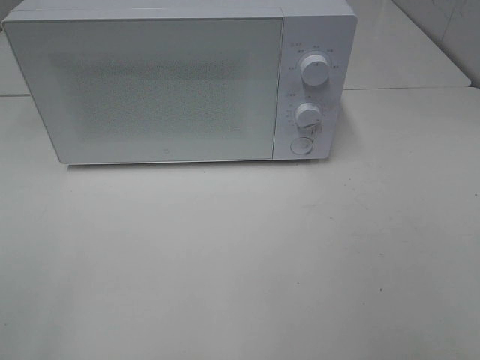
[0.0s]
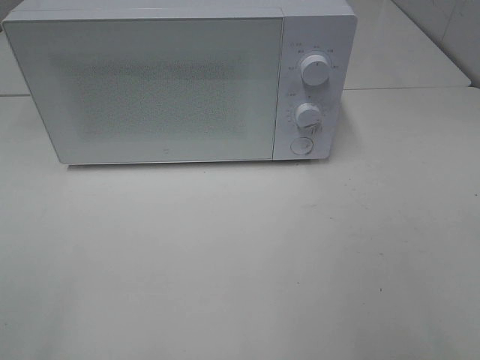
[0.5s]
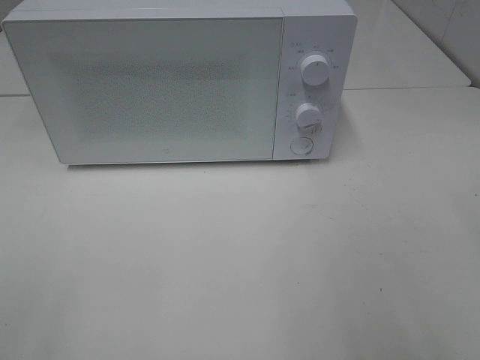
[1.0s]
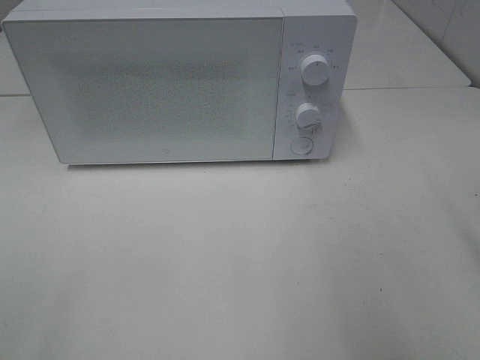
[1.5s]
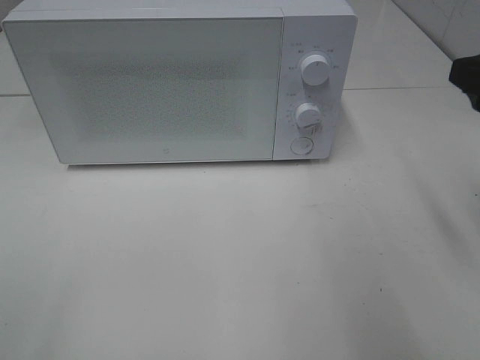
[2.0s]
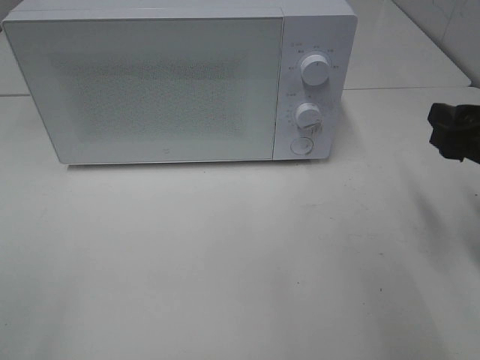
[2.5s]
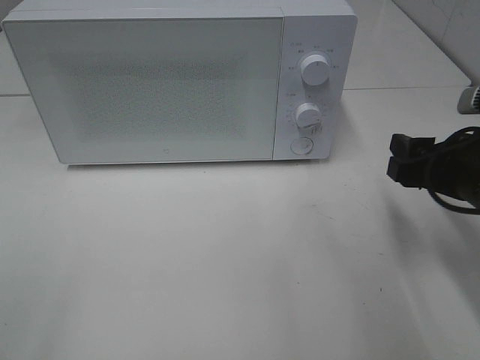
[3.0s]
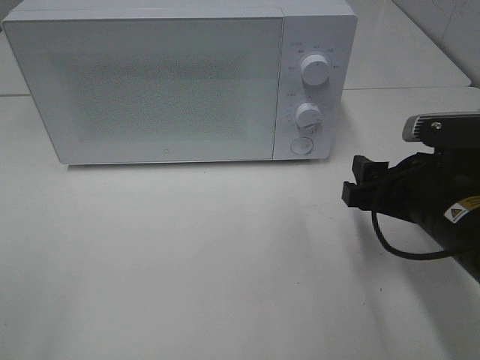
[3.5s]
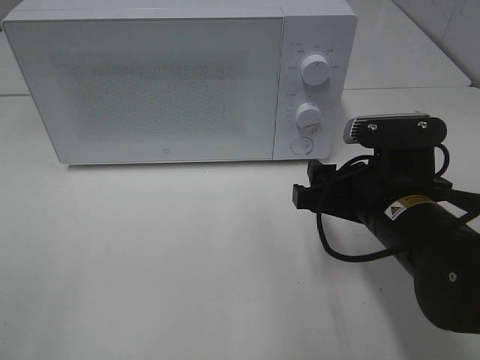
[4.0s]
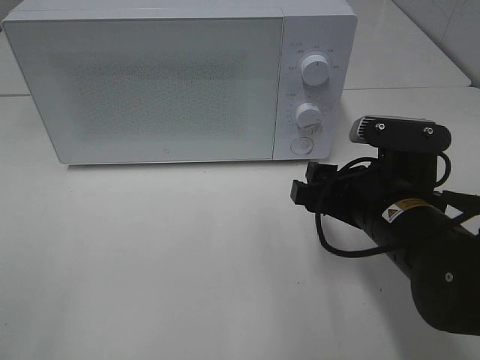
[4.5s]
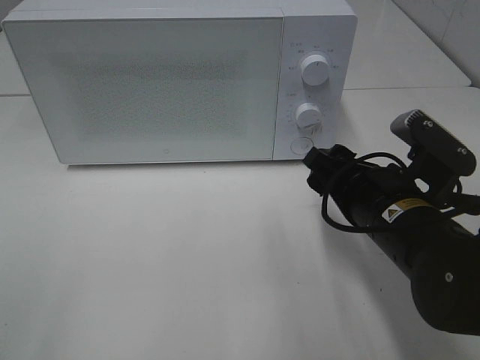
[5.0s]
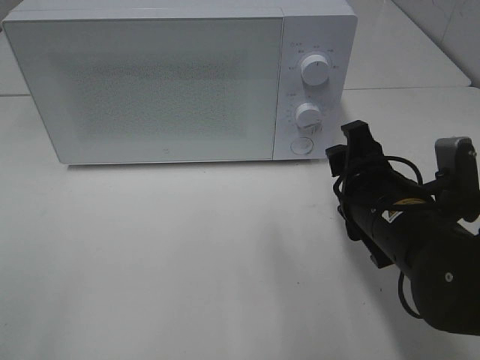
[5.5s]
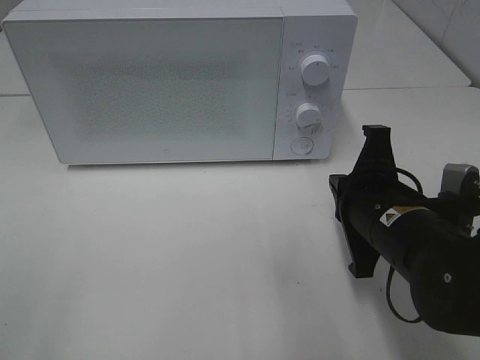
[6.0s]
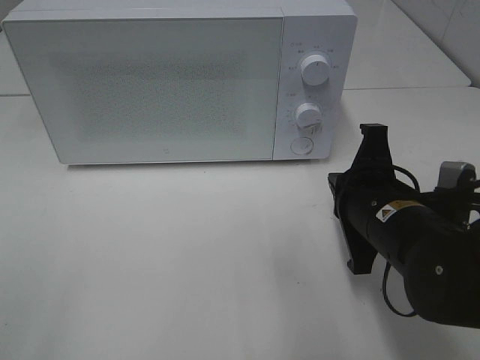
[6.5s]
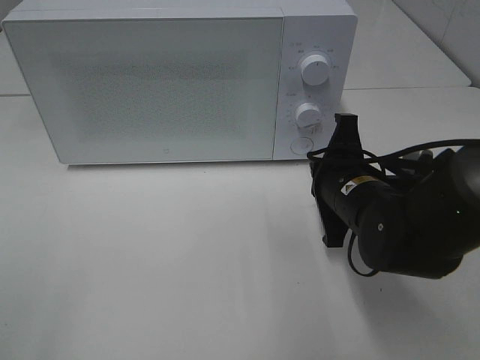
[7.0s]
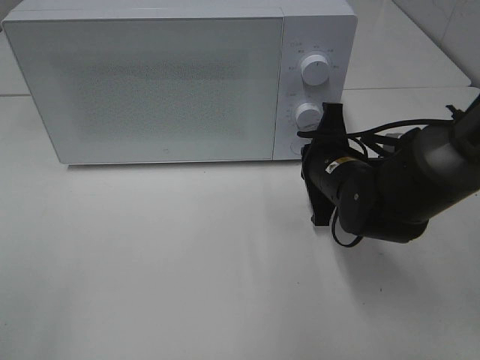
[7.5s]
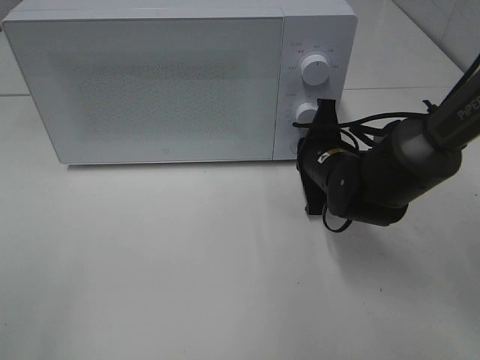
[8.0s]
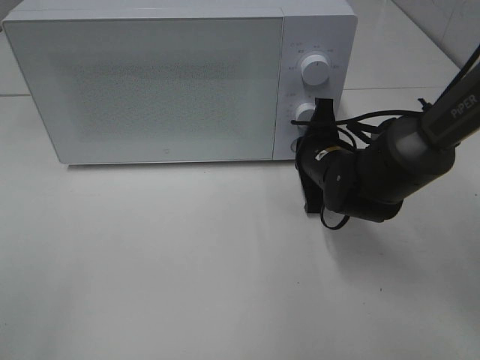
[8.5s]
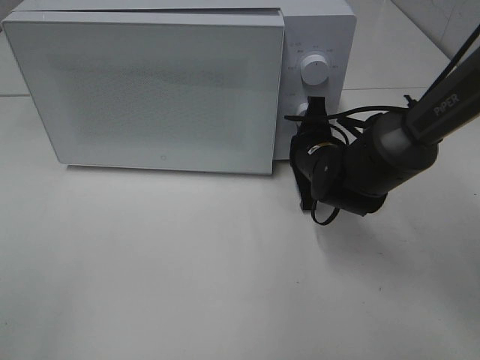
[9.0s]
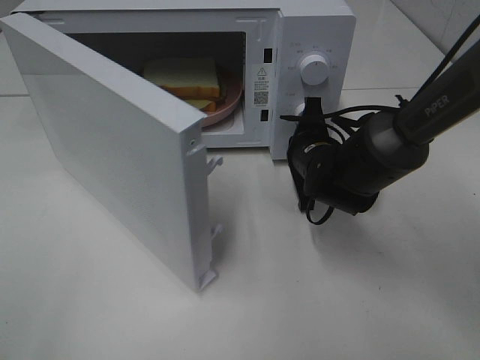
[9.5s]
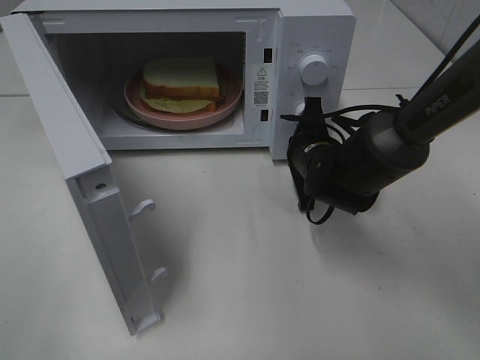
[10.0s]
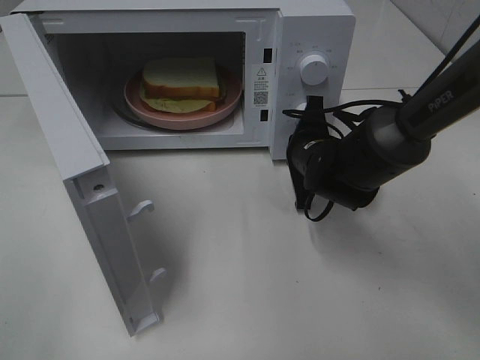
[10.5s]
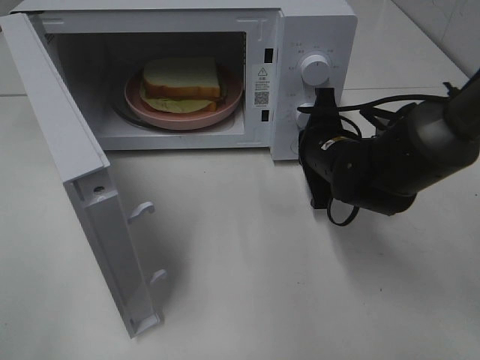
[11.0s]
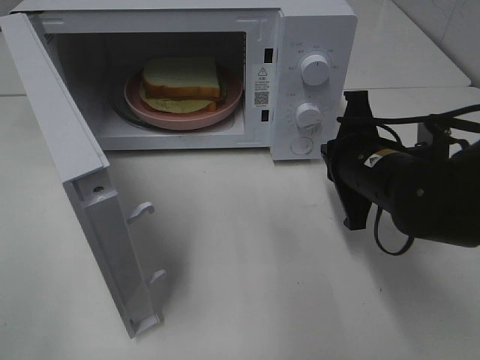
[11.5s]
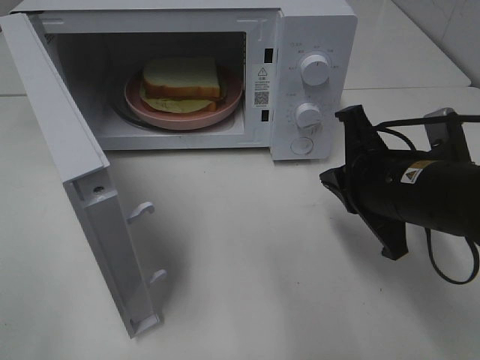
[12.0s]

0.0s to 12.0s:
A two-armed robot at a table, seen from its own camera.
Task of the whole recording: Heat Sandwich.
Step, 0.0s to 11.0s: Right hand: press the switch.
0.0s to 2.0s: The right gripper travels forward by roughly 20 cm.
2.0s to 4.0s: The right gripper moves downward and to the left, approximately 15 cm.
4.0s to 6.0s: The right gripper closes.
6.0s to 8.0s: The right gripper shifts approximately 15 cm forward.
10.0s to 12.0s: The right gripper is displaced backward and upward by approximately 15 cm.

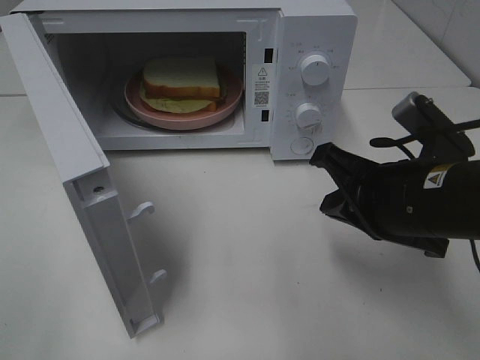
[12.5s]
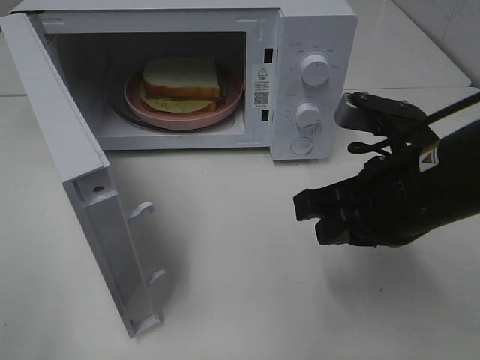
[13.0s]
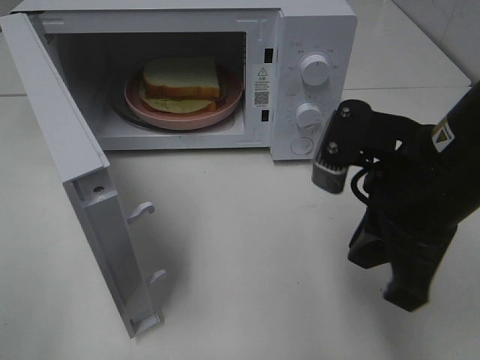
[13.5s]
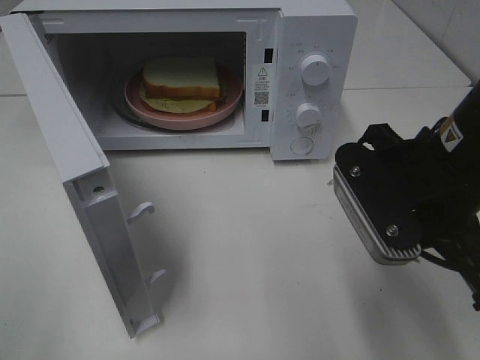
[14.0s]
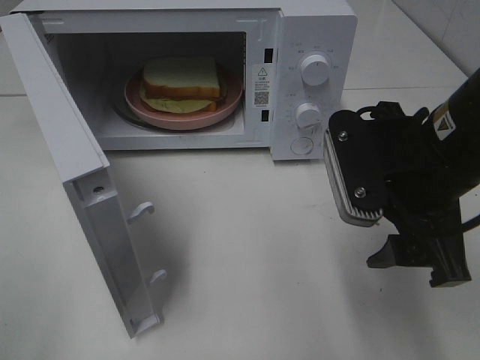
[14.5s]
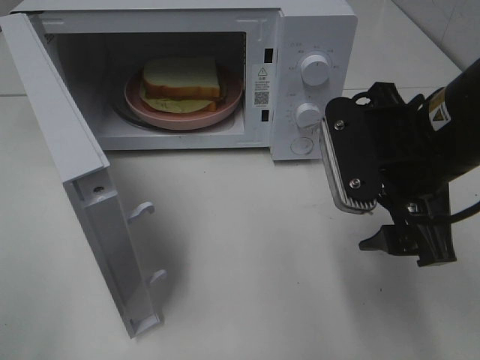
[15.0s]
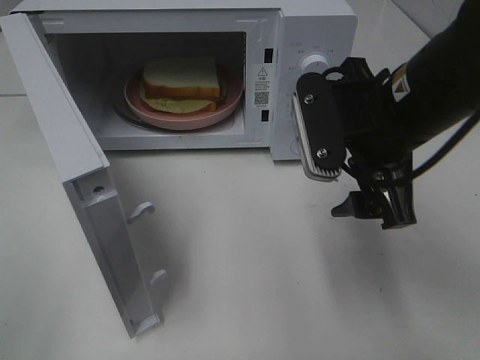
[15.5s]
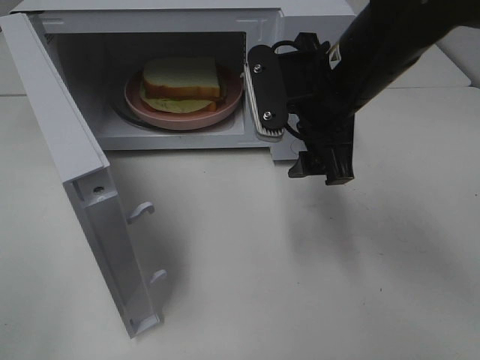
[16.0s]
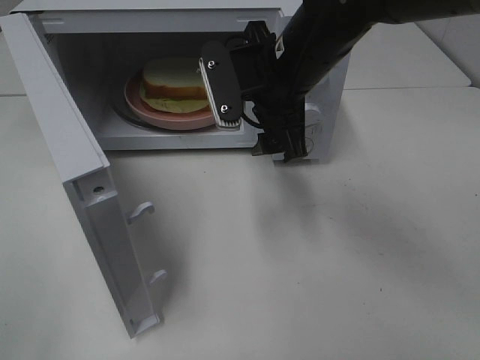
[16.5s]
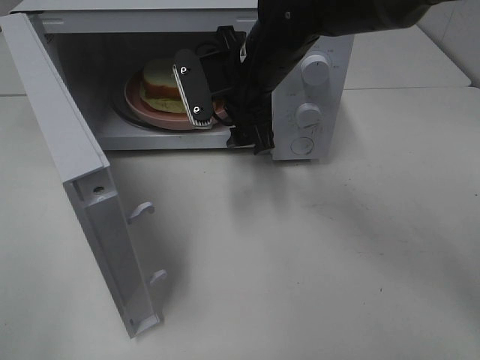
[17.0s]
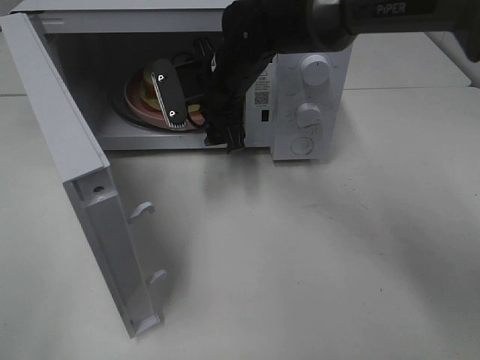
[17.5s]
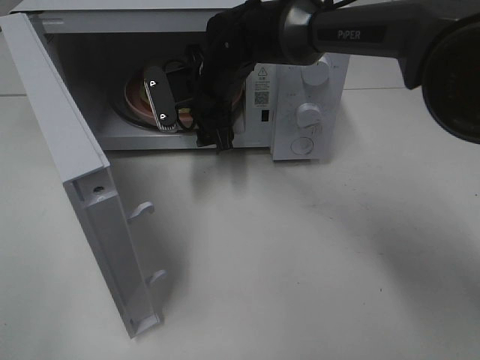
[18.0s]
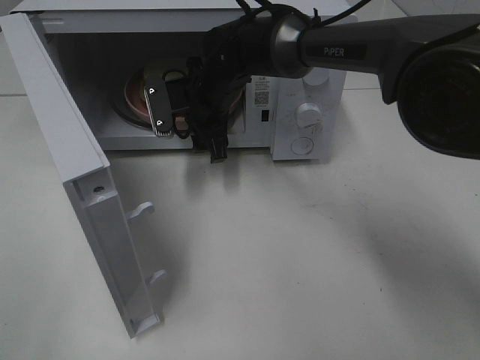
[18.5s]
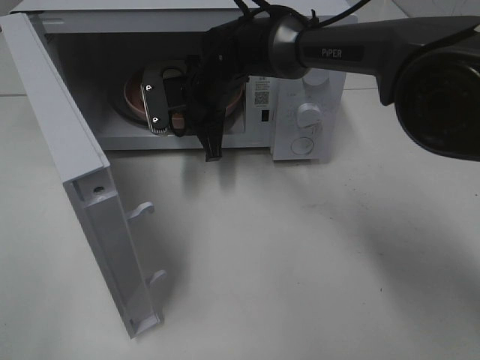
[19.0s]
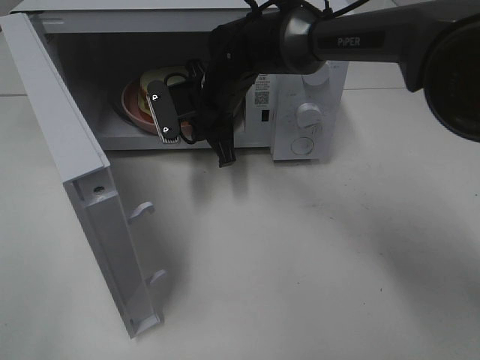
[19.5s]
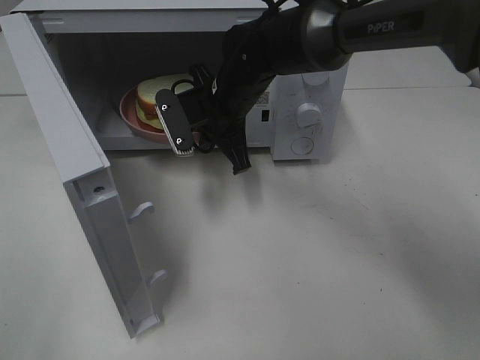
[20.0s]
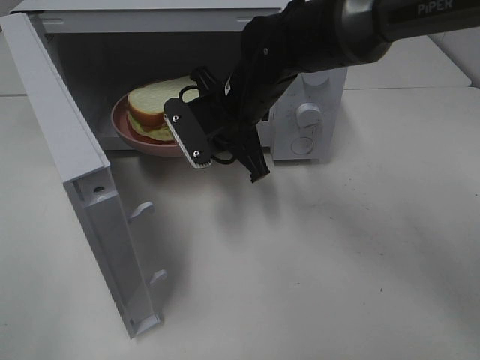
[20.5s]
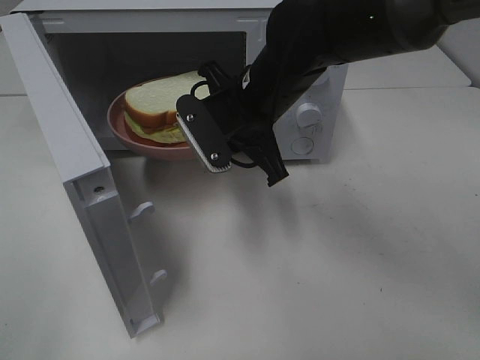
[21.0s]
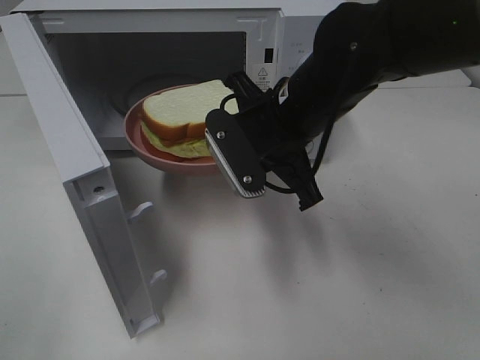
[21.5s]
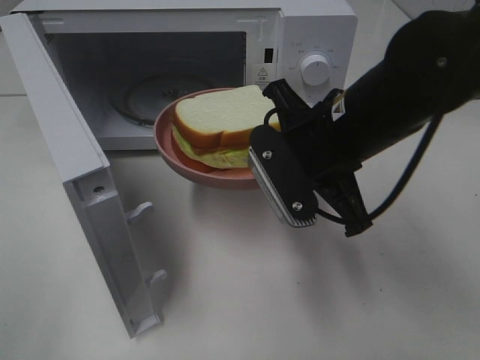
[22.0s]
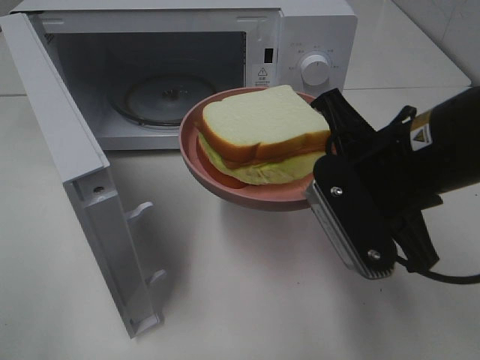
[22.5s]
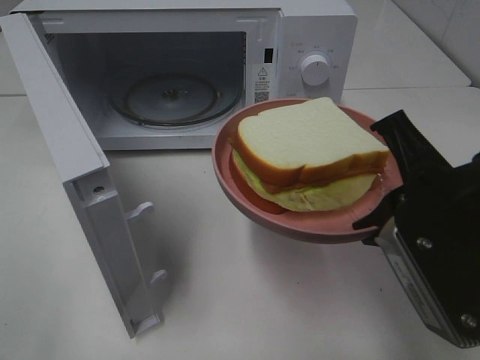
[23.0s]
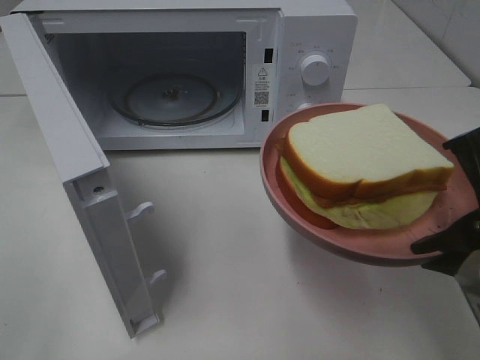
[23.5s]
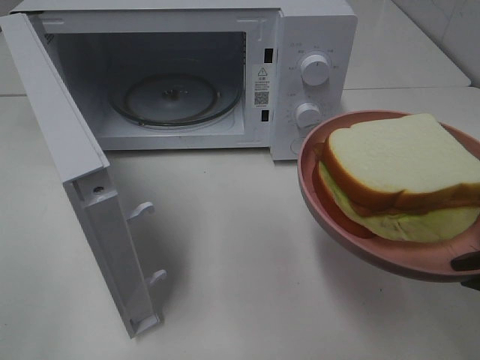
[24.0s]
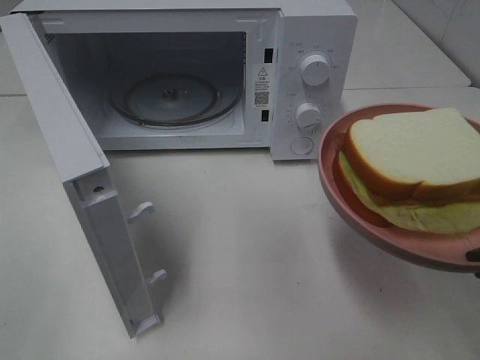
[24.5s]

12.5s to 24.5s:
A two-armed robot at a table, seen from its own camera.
Task of the whole recording: Heat Sandwich.
Step, 12.5s to 19.0s: Right hand: grab the plate with the sandwich.
12.5s to 14.5s: The right gripper moves upward, some 5 cm, and opens.
14.5s to 16.5s: The right gripper heads forward and to the left, covering some 15 cm.
16.5s to 18.5s: The right gripper moves forward, downward and to the left, some 15 cm.
18.5s to 20.5s: The right gripper travels backward by some 5 cm, and closes.
20.5s to 22.5s: The right gripper shifts roughly 20 cm backward and to the right.
22.5s to 24.5s: The right gripper heads backward and to the right, covering about 15 cm.

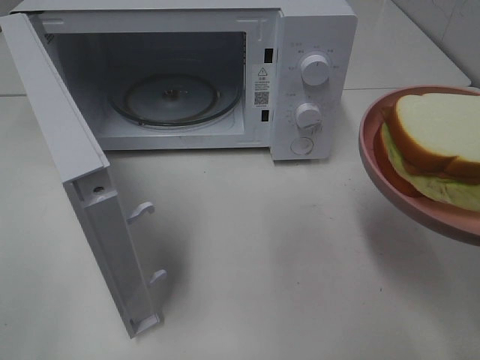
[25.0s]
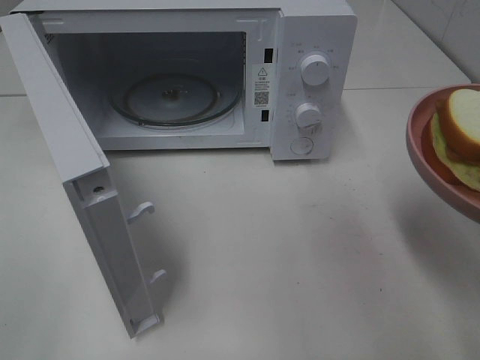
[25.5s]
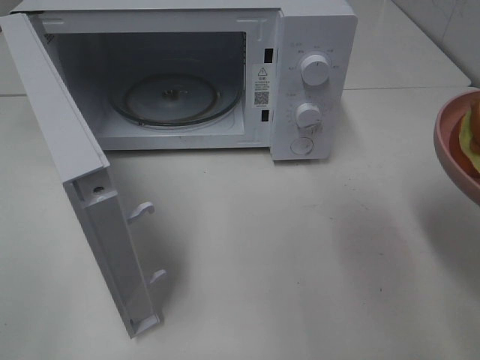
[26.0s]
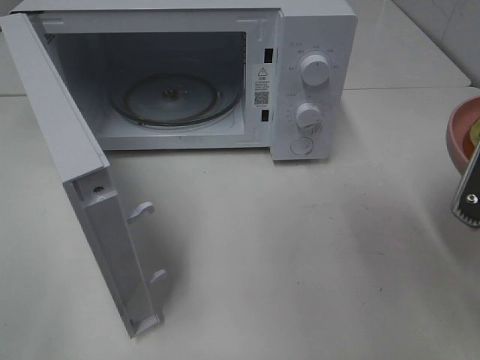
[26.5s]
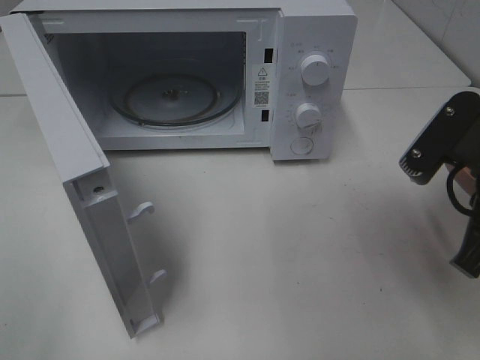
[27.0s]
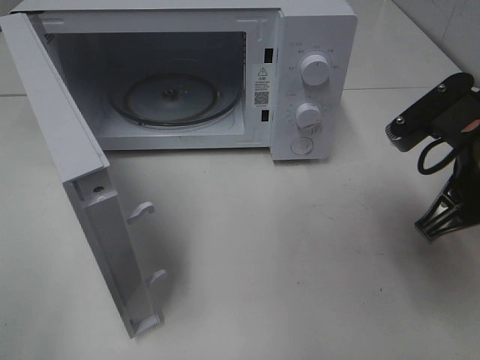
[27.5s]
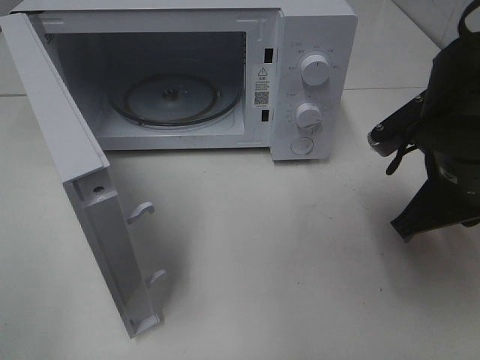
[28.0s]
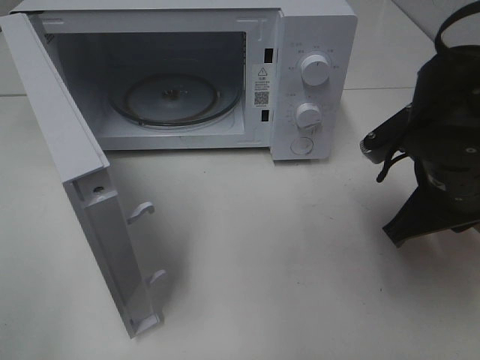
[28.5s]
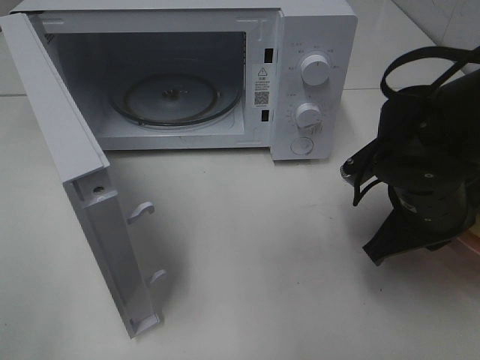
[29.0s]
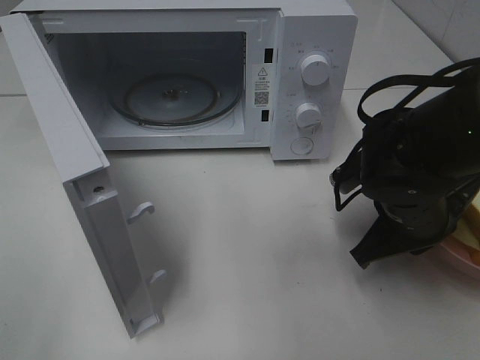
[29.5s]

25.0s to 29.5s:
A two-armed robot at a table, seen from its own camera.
Task of the whole recording: Heat Sandwich.
25.0s to 27.0s: The right gripper goes approximately 10 cm forward.
27.0s to 29.5s: The right gripper is displaced downward and forward by about 10 cm.
